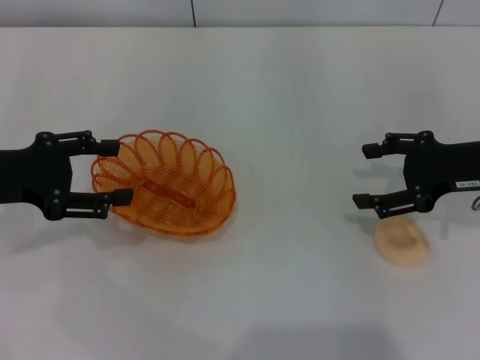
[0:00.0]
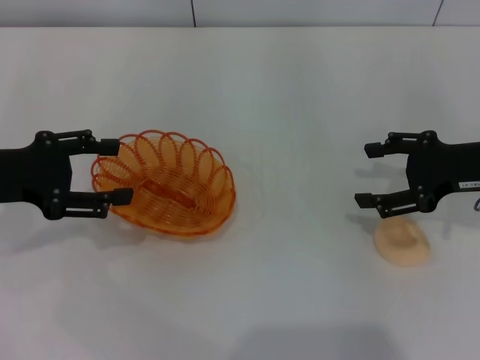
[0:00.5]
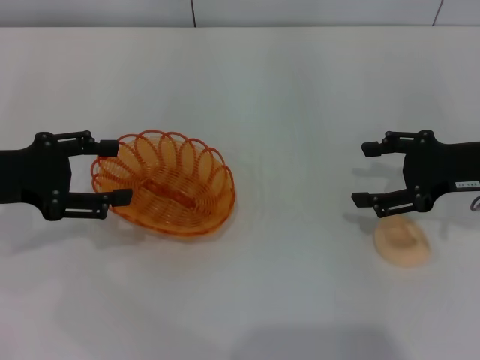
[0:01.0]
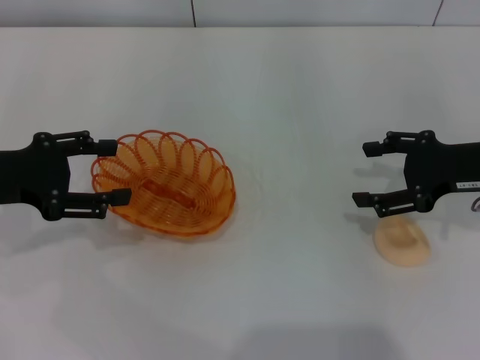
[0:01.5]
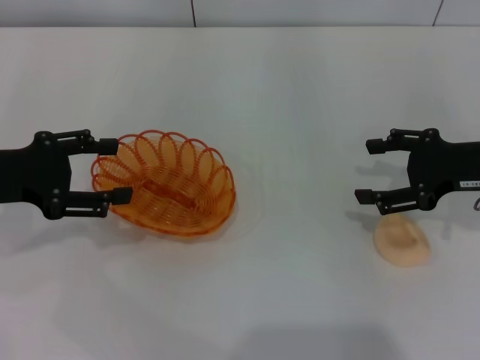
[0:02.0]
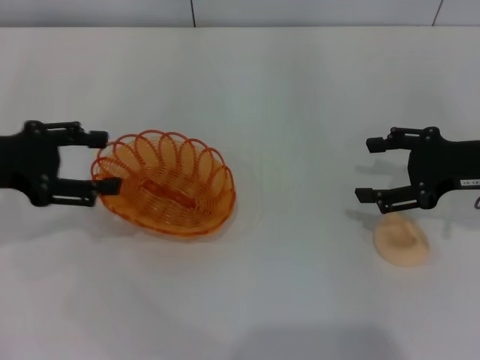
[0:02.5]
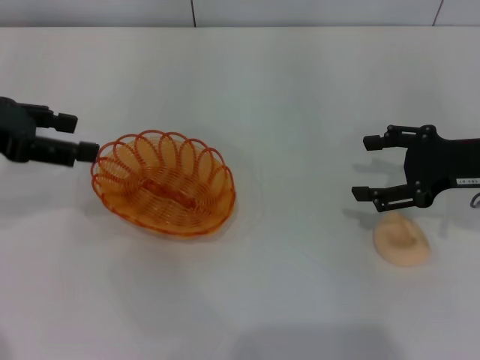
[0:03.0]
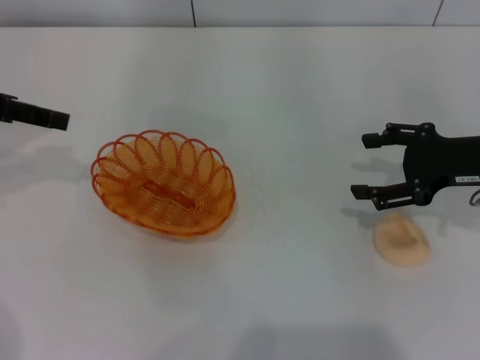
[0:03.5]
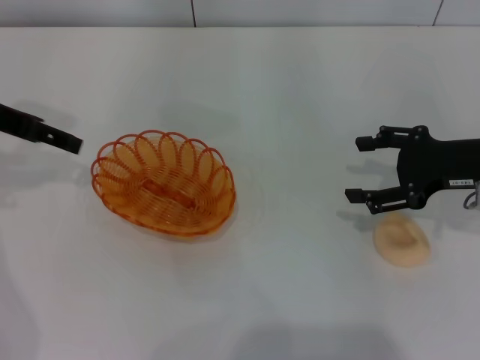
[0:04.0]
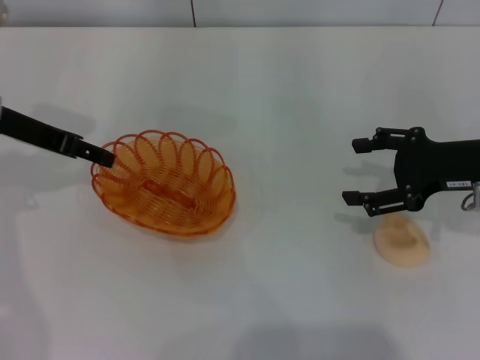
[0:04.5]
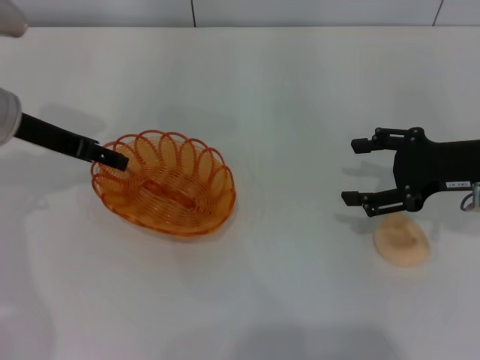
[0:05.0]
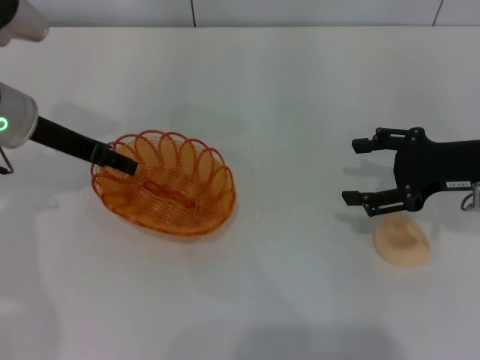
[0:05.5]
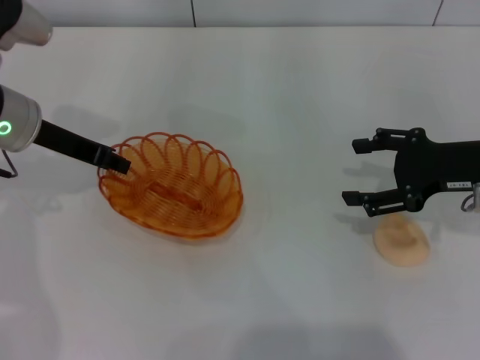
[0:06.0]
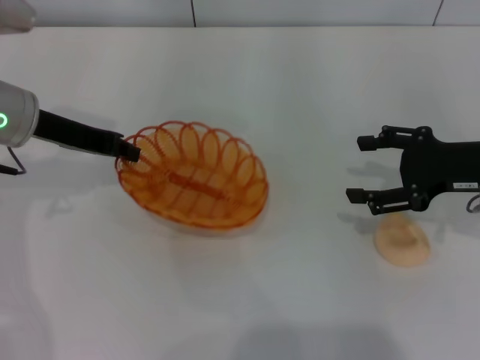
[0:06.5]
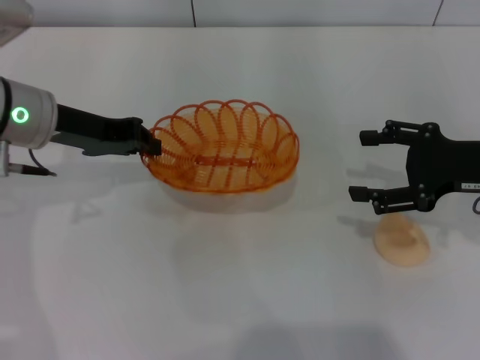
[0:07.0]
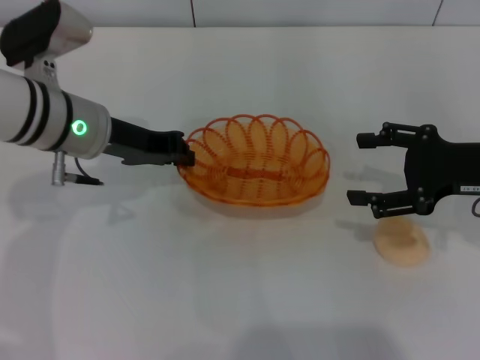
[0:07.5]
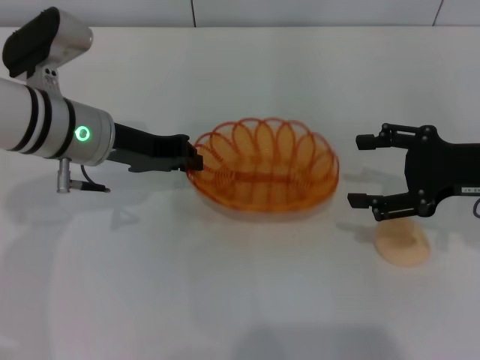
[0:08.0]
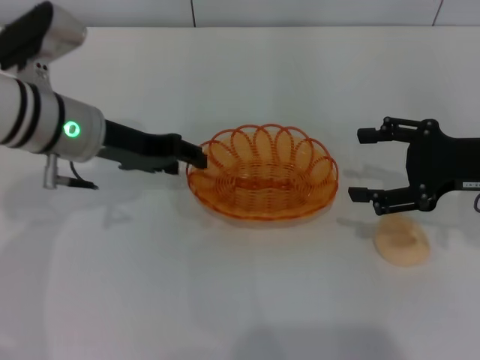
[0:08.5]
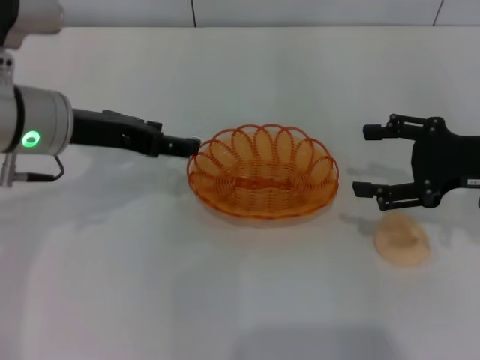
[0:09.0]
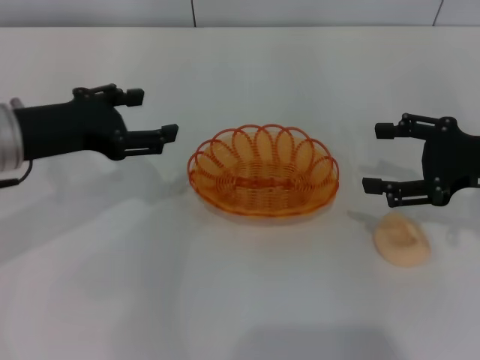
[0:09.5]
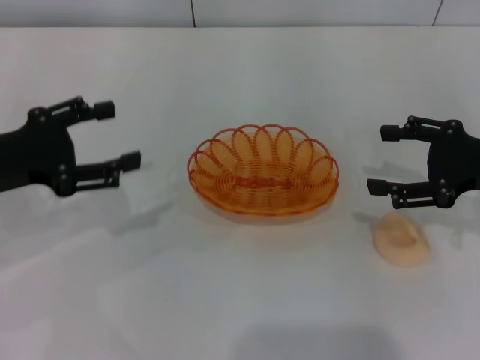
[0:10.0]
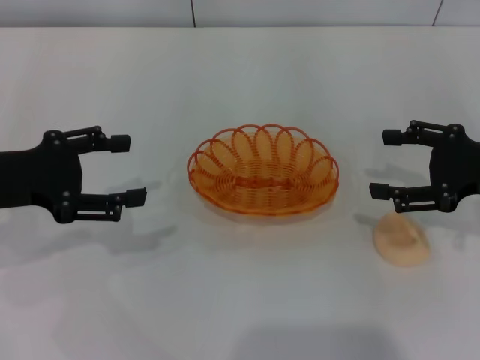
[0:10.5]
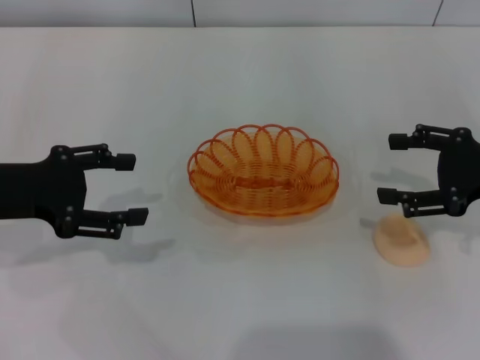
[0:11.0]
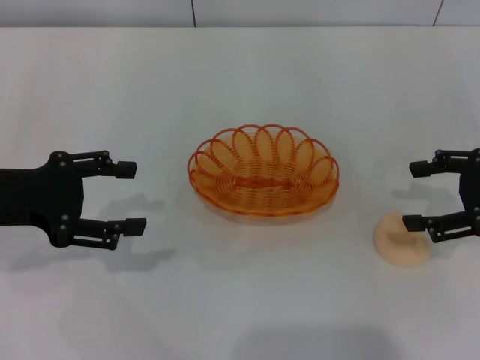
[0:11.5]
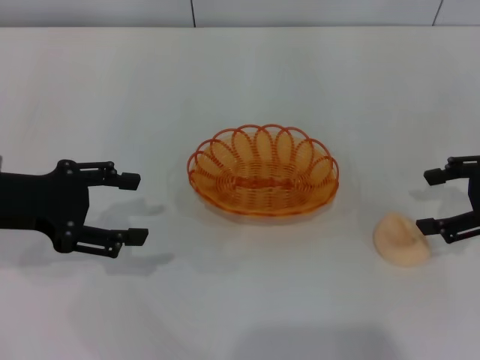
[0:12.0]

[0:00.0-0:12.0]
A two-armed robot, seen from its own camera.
Step, 0:00.0 to 0:06.5: Pick up the basket with the left gripper.
Step, 0:07.0 to 0:09.0: Place the basket in the center of view with the left gripper.
0:00.0 to 0:02.0: Neither gripper changes place.
0:02.0 to 0:04.0: The left gripper is displaced forward and upward by approximately 10 cm.
0:04.0 to 0:06.0: The left gripper heads downward and to the right, covering some 10 cm.
0:06.0 to 0:08.0: The left gripper is displaced to the right by about 5 cm, and closes its fingers.
0:08.0 to 0:10.0: The left gripper is displaced to the left and backward by about 15 cm, and opens.

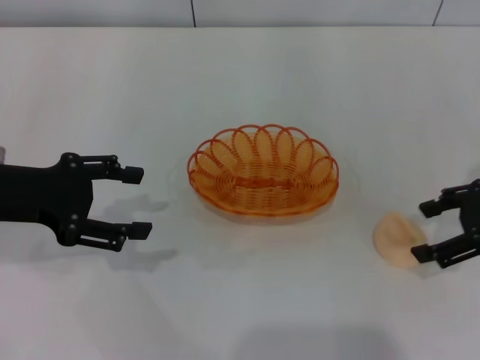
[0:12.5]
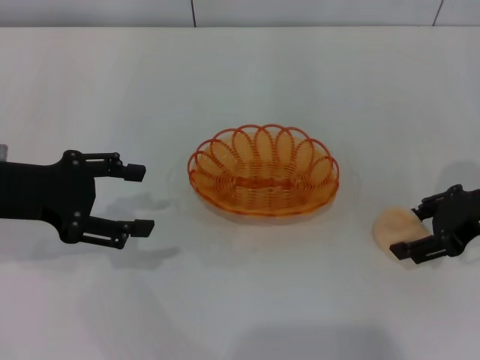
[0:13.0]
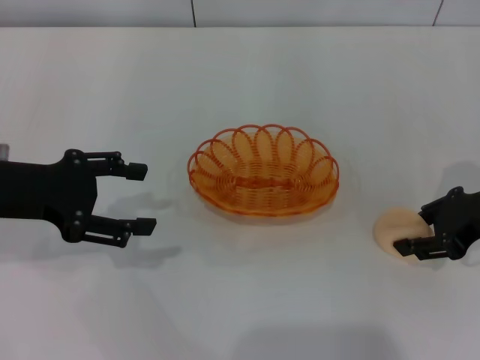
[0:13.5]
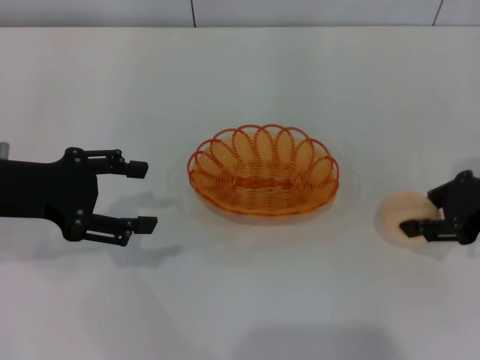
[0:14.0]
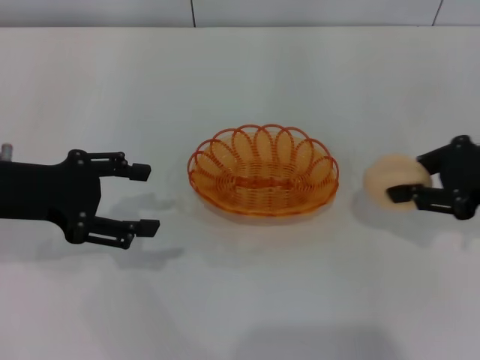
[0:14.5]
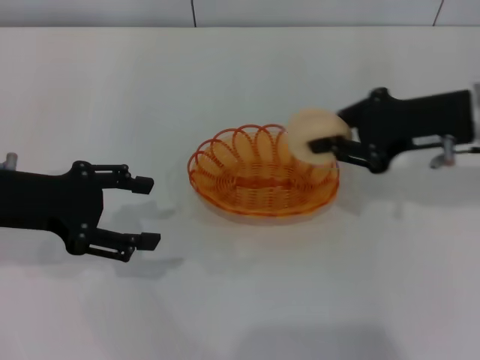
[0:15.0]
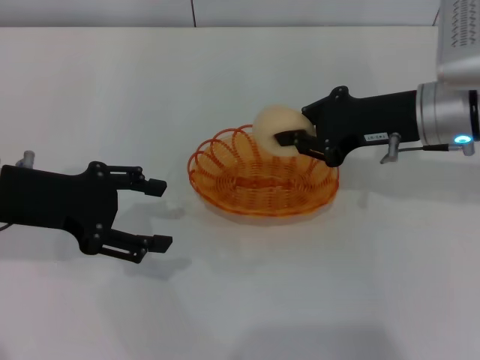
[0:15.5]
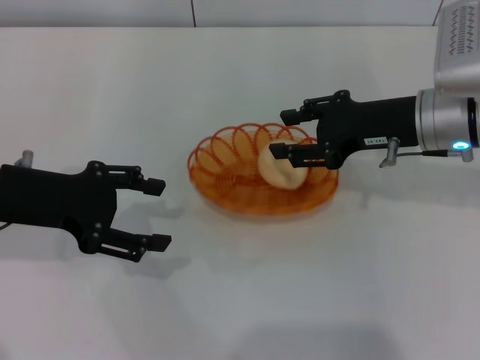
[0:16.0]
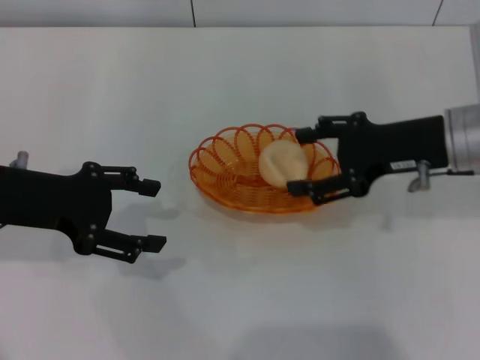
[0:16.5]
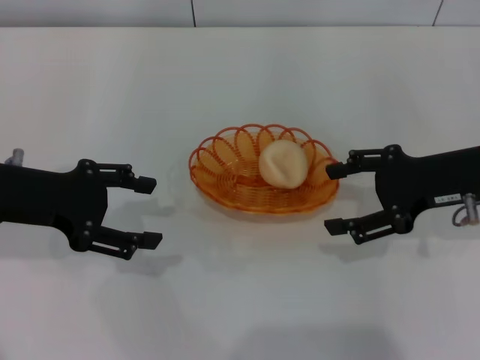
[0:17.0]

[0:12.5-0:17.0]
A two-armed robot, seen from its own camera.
Step, 0:14.5 to 0:16.5: Place the egg yolk pastry into the basket with the right gripper.
0:12.5 to 0:14.5: The right gripper closes up.
0:14.5 to 0:17.0: The right gripper opens its fingers.

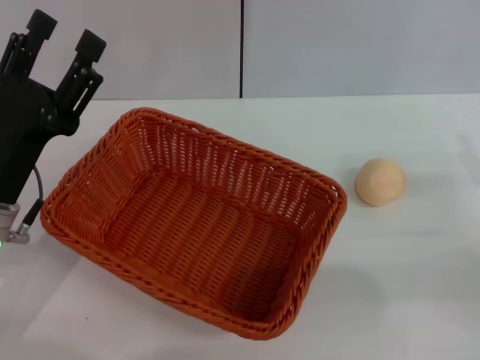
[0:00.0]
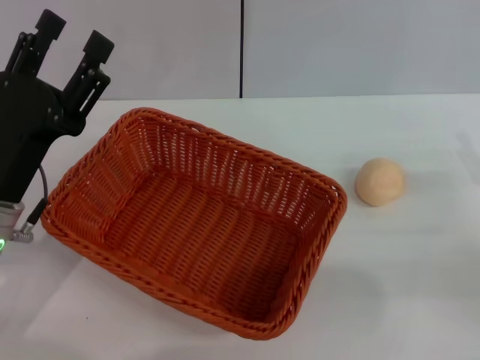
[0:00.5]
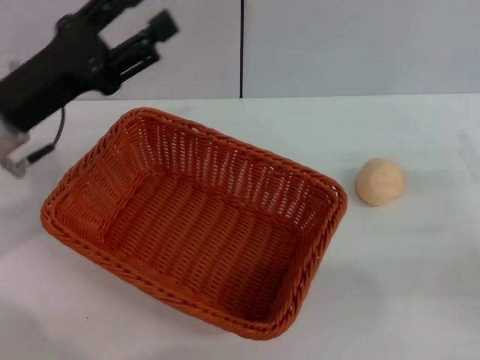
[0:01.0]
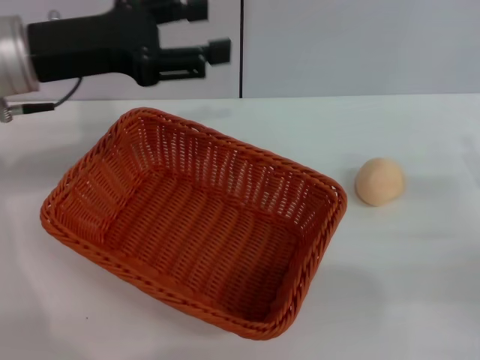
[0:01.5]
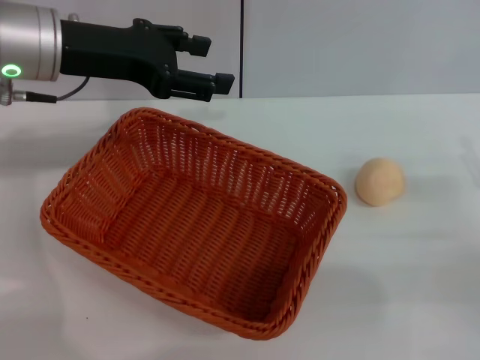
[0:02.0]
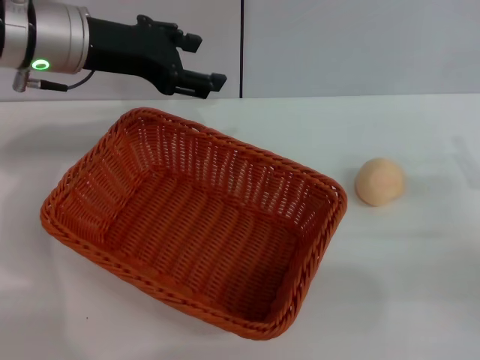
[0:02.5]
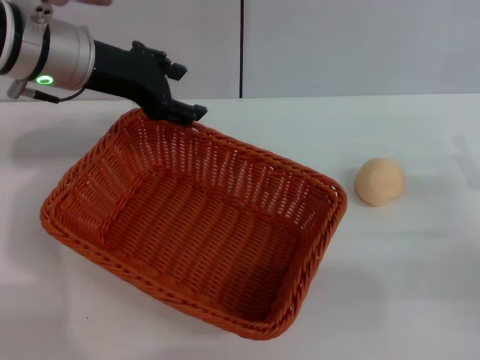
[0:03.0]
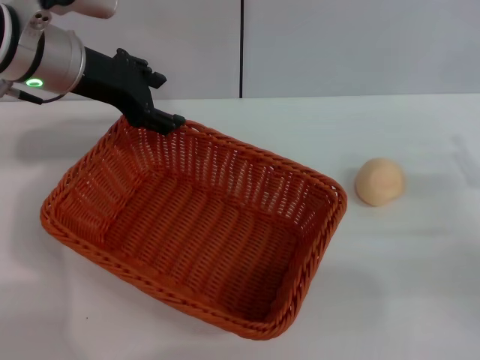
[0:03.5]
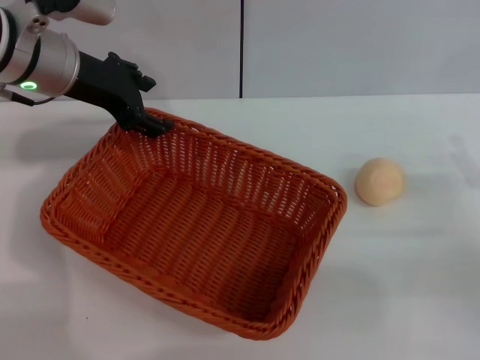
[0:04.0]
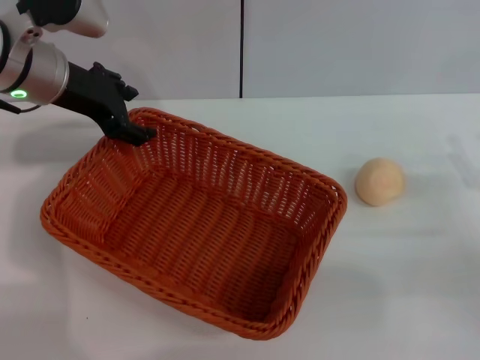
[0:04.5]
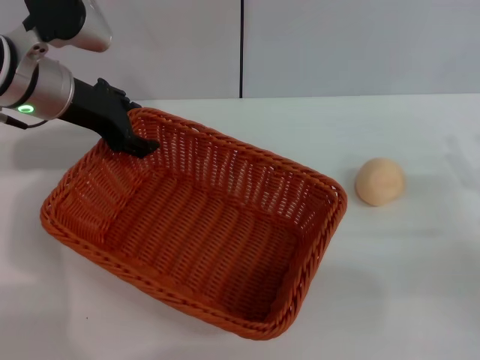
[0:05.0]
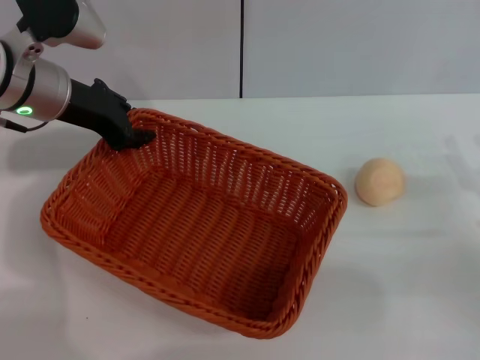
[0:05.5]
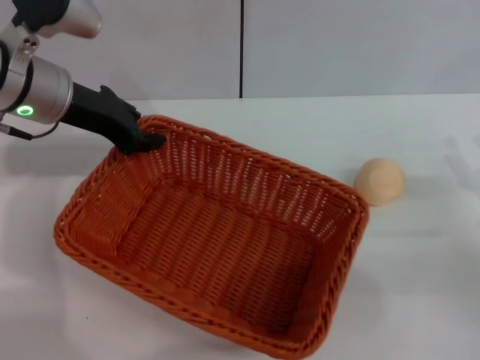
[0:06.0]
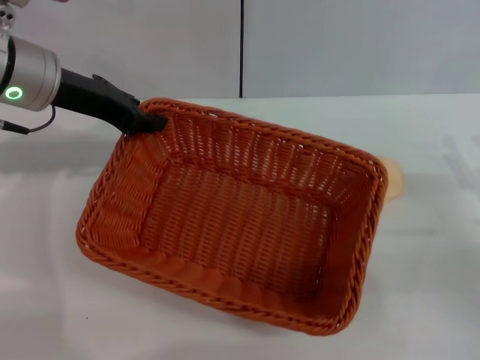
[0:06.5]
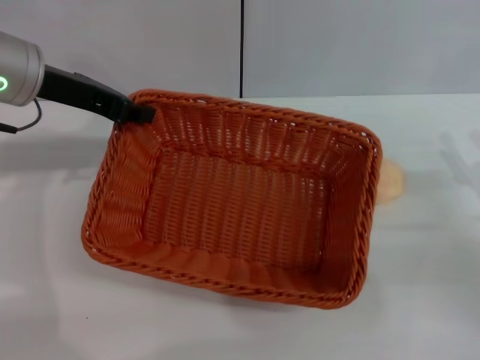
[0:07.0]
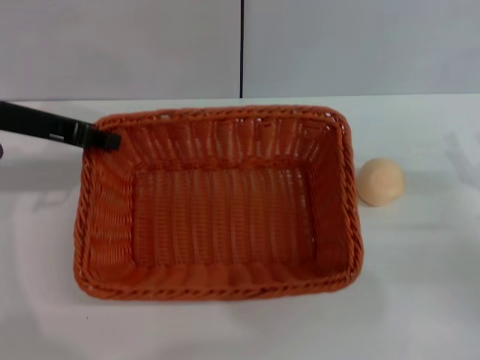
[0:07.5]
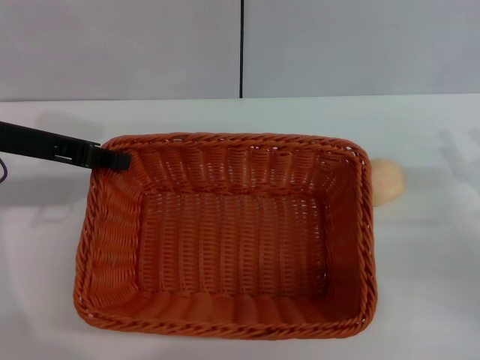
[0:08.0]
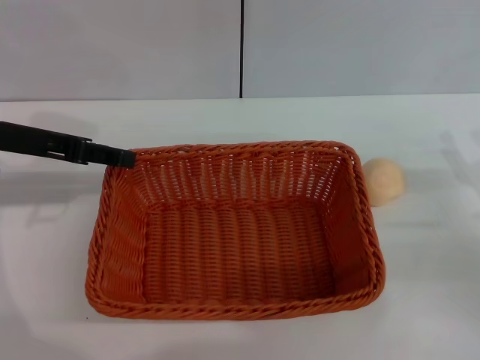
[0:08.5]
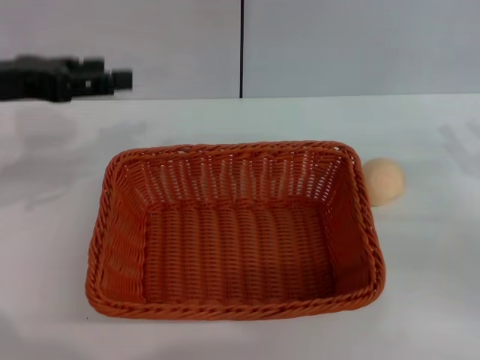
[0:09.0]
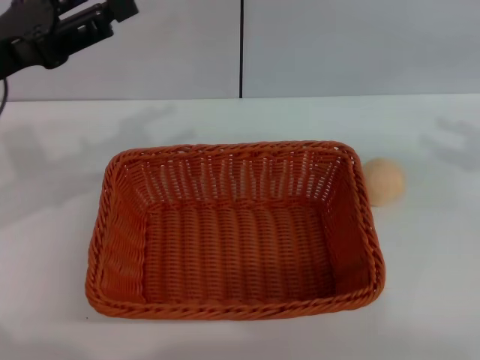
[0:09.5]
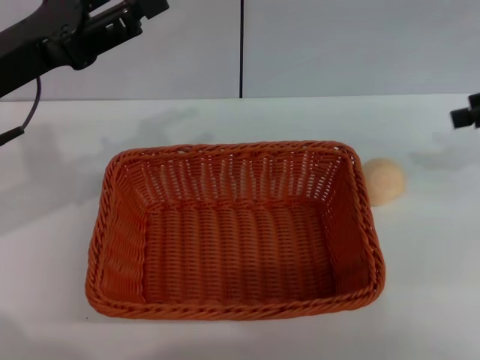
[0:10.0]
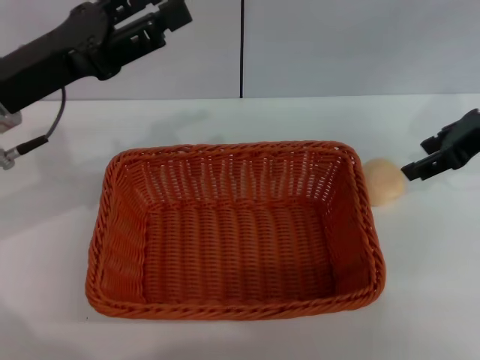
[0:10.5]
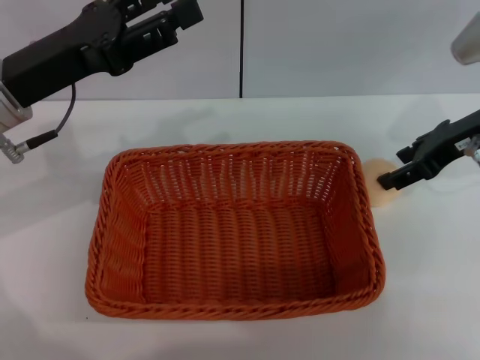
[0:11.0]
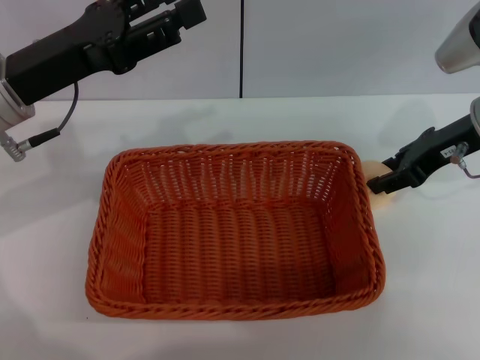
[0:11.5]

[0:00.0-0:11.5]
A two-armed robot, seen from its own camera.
Step, 0:00.0 to 0:05.0: Grasp the basket with left gripper.
Step, 0:05.5 to 0:08.5: Place the basket in the center of view with left gripper.
0:00.0 to 0:02.0: The left gripper travels forward and upward by about 20 cm.
0:04.0 to 0:06.0: The left gripper closes.
0:06.0 to 0:07.5: The left gripper goes some 5 cm to the left.
0:07.5 to 0:09.5: The left gripper opens up. Meanwhile the right gripper shifts approximately 15 cm upward, to the right and forward.
0:09.5 to 0:11.5: The left gripper moves some 5 cm. Meanwhile the right gripper moves to the left and forward, roughly 15 cm.
